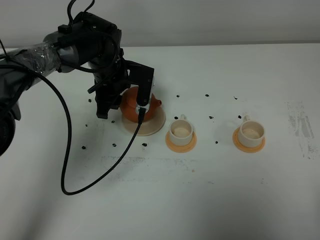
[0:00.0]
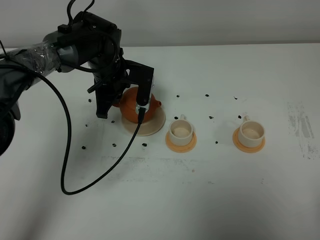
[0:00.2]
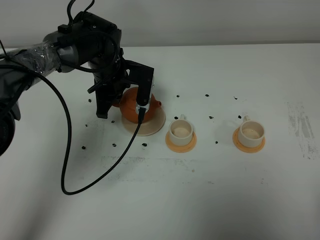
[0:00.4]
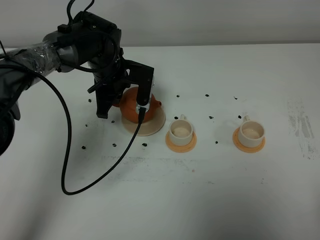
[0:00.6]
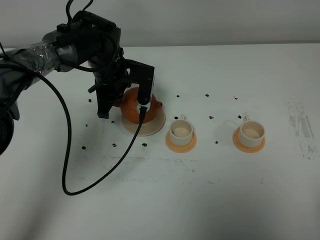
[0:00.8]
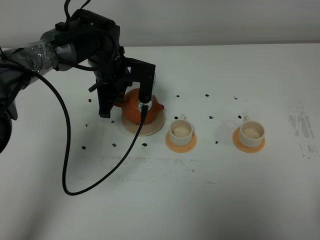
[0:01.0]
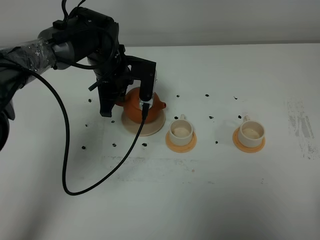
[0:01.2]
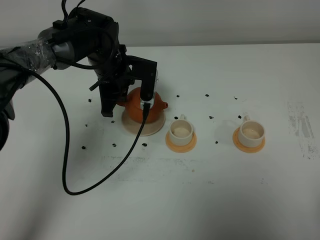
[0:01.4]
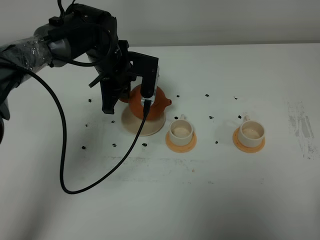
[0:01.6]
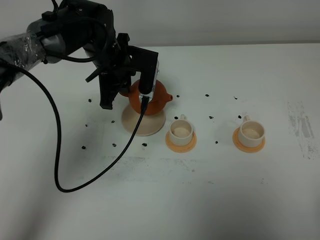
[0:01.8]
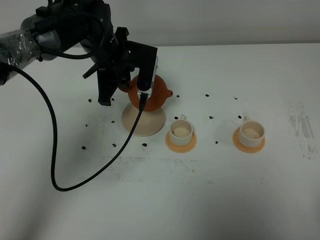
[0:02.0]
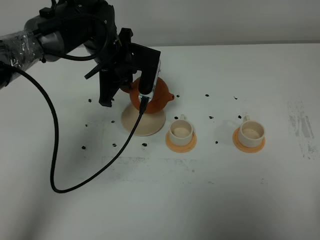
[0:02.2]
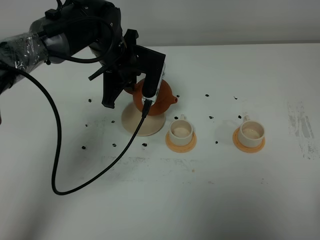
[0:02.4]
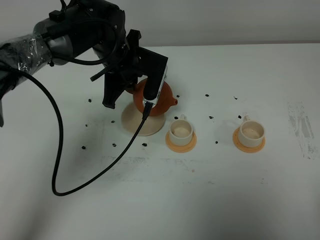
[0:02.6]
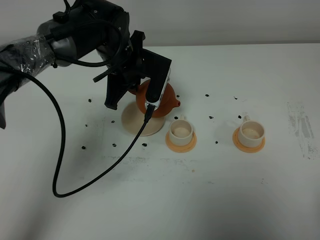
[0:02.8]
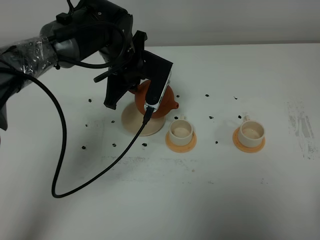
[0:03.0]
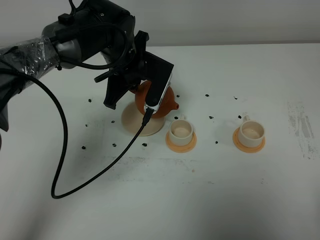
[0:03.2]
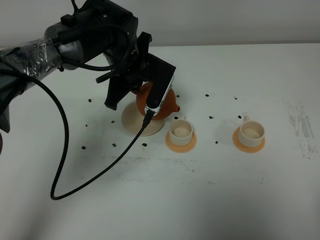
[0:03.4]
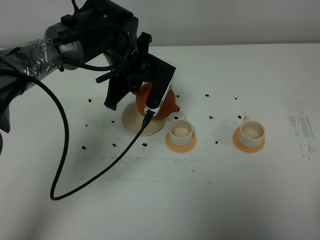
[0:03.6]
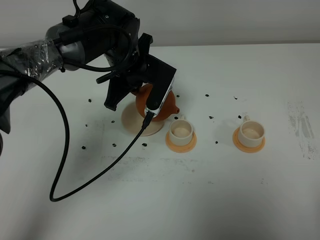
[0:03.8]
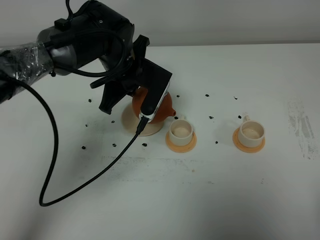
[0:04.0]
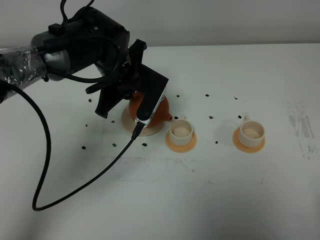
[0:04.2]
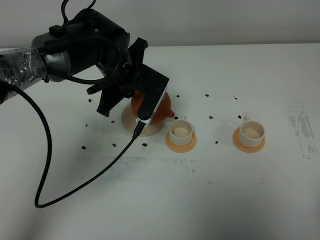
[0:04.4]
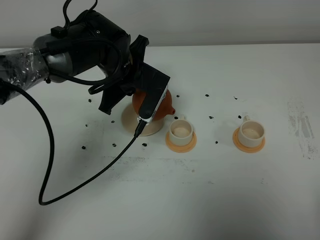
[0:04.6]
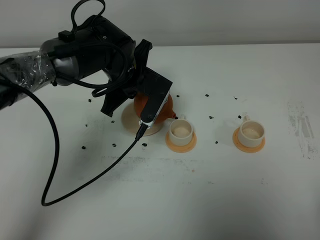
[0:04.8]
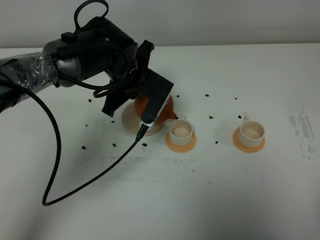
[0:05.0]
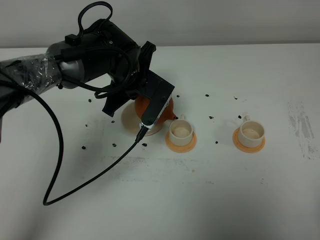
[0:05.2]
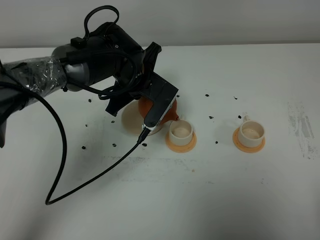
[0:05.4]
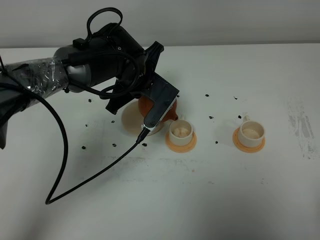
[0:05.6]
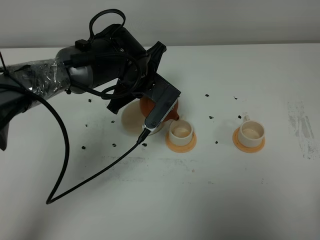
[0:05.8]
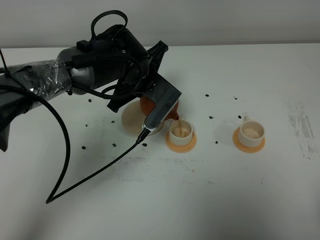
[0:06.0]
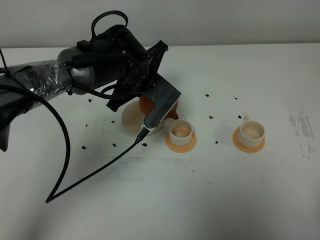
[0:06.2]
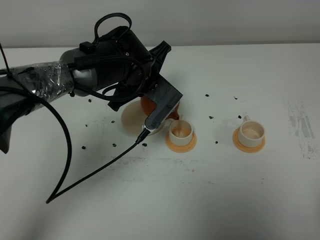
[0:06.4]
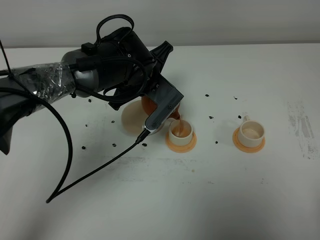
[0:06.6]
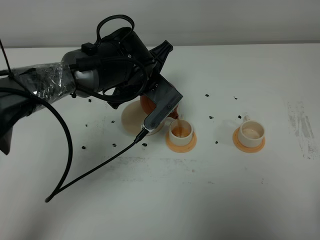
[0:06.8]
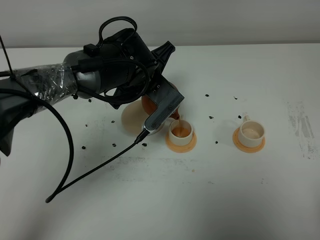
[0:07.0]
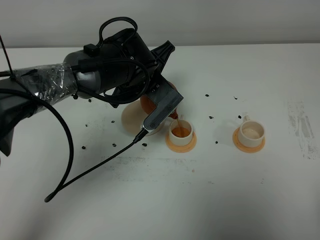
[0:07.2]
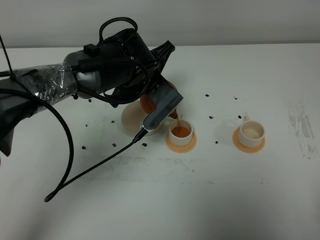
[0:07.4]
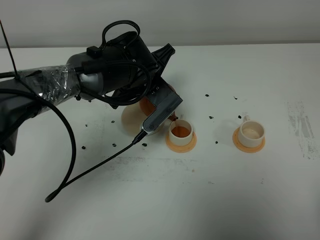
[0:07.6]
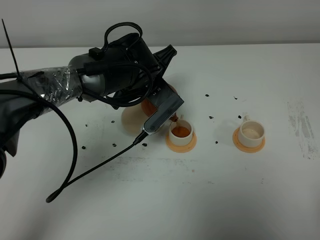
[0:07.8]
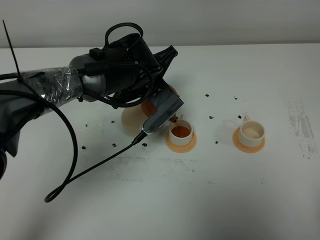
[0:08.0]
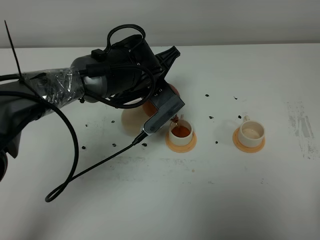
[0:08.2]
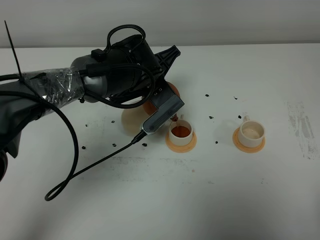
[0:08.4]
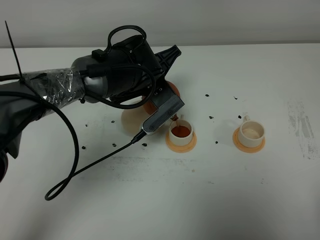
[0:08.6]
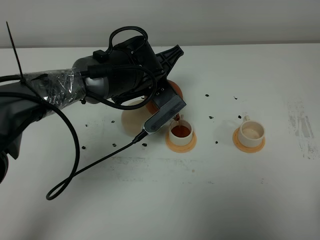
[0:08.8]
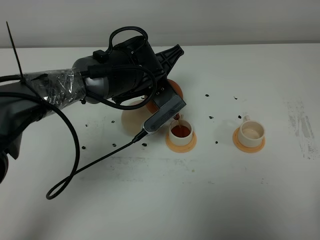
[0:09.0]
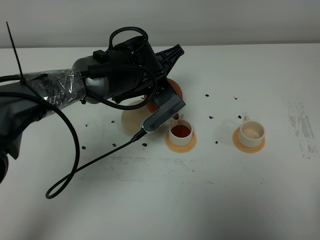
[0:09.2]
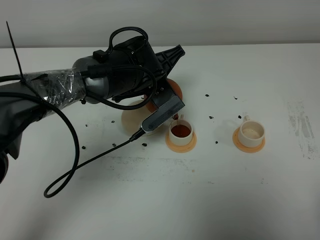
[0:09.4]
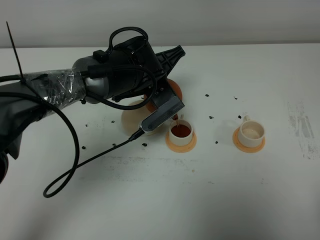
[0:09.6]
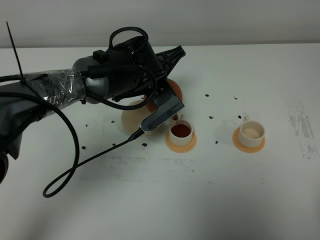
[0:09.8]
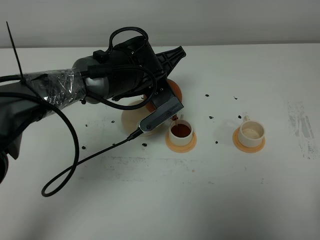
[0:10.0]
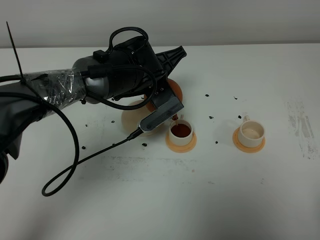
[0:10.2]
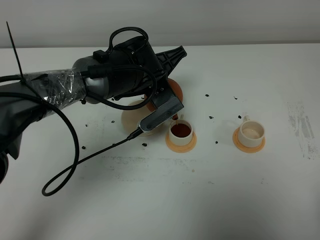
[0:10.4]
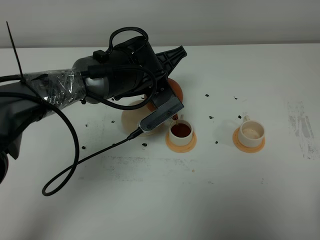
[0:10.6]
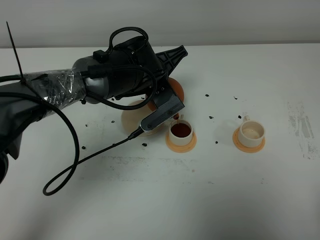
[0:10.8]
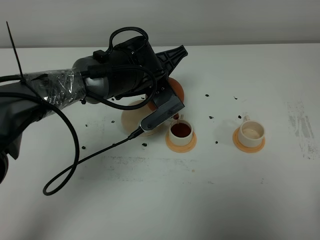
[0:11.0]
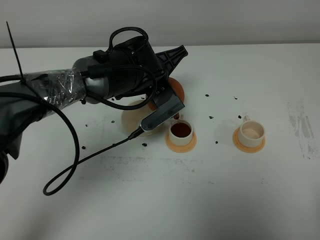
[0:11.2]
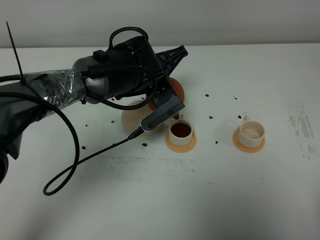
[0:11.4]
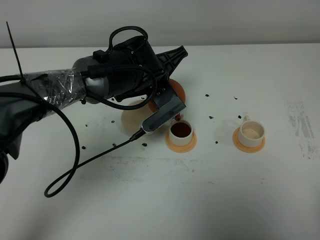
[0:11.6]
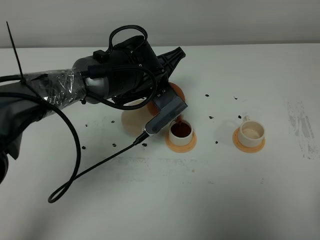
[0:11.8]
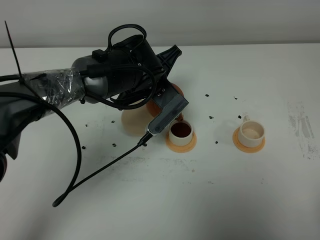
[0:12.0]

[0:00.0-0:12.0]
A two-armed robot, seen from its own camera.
Task of the whole recording: grasp the brown teapot and pour the tea into the two white teacups one by one, put the brown teapot back in its original place.
0:00.0 to 0:01.6: The left gripper closes.
0:01.6 to 0:03.0: The grippers move only a little.
0:03.0 to 0:04.4: The grippers stay close to where they were, moving slightly.
0:04.4 to 0:06.0: The grippers move only a little.
0:06.0 to 0:09.0: The grippers move only a little.
0:09.0 to 0:12.0: The grippers make only small movements.

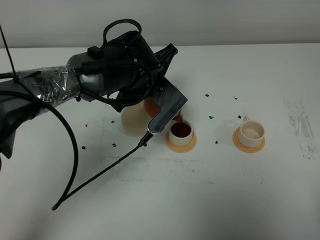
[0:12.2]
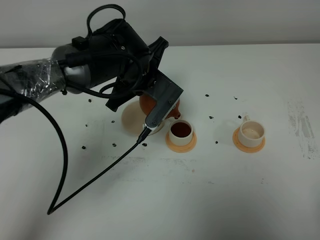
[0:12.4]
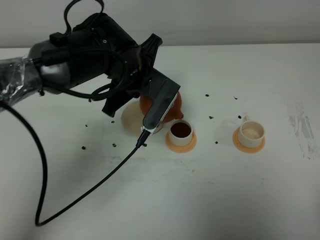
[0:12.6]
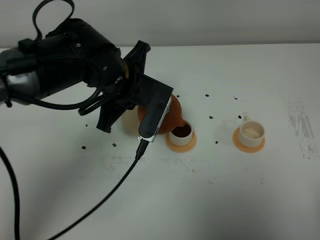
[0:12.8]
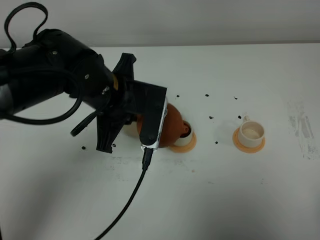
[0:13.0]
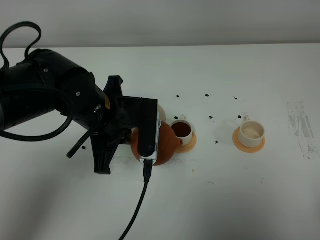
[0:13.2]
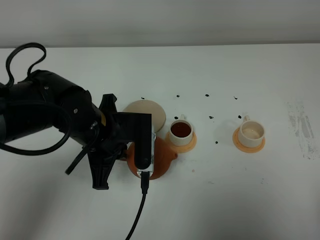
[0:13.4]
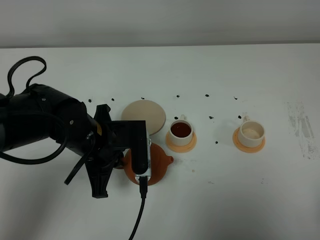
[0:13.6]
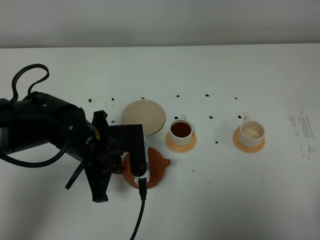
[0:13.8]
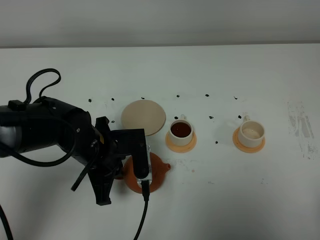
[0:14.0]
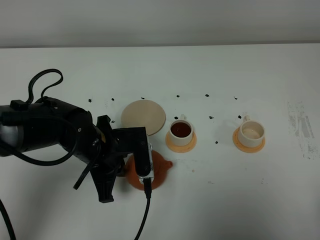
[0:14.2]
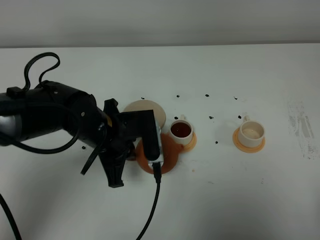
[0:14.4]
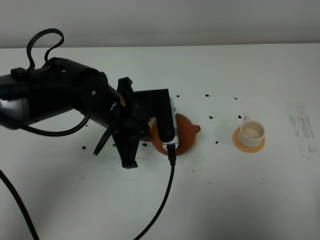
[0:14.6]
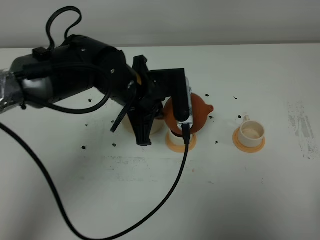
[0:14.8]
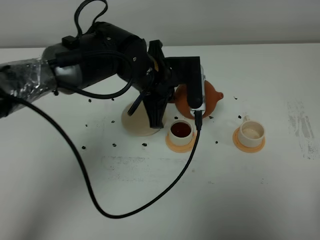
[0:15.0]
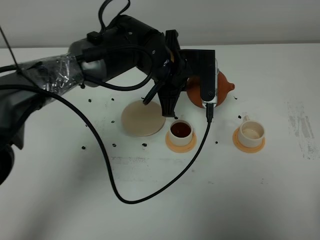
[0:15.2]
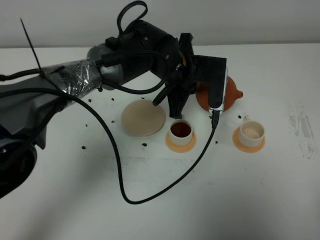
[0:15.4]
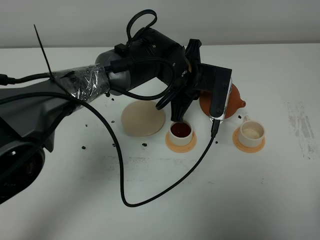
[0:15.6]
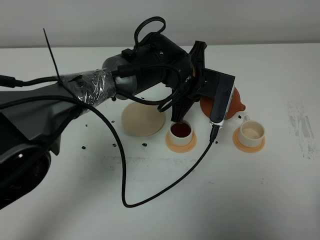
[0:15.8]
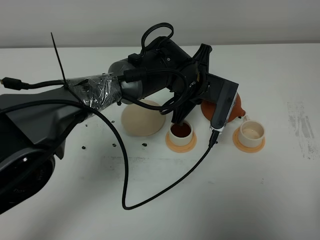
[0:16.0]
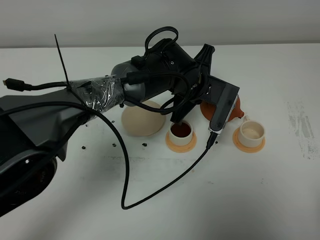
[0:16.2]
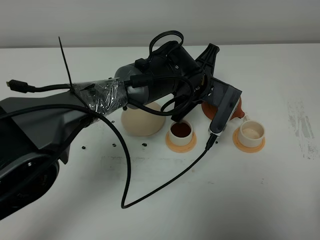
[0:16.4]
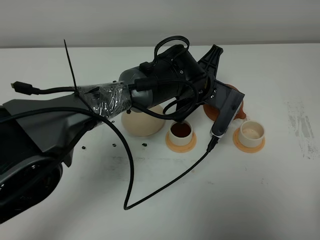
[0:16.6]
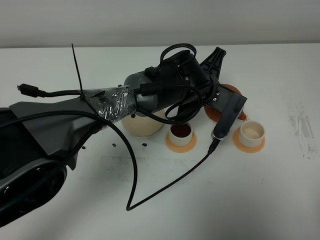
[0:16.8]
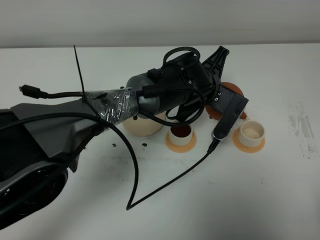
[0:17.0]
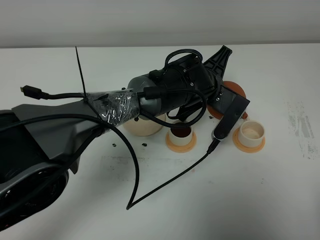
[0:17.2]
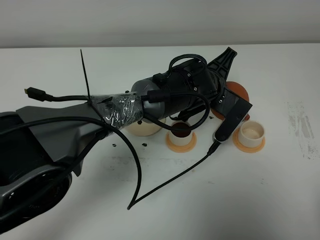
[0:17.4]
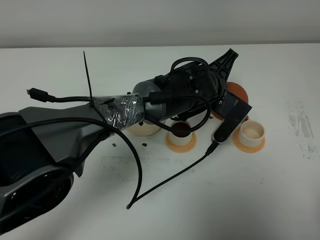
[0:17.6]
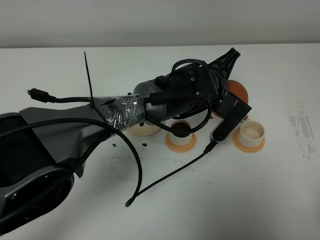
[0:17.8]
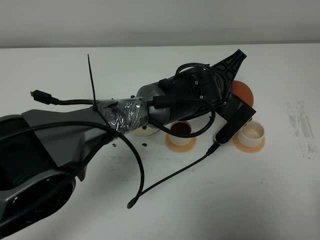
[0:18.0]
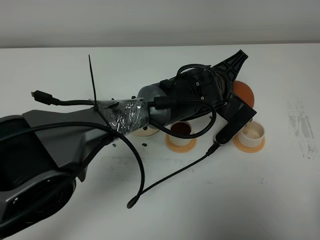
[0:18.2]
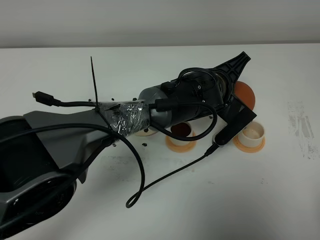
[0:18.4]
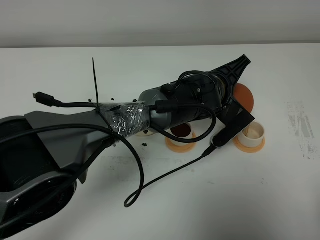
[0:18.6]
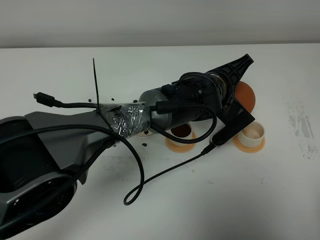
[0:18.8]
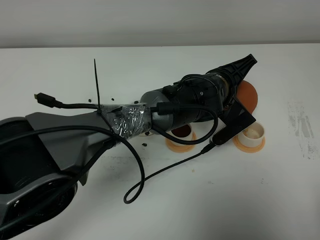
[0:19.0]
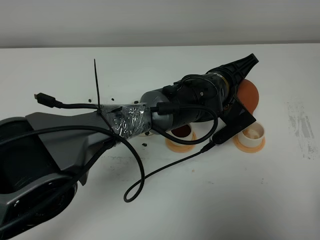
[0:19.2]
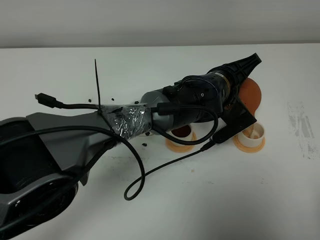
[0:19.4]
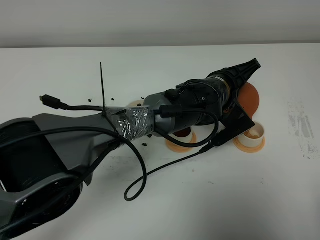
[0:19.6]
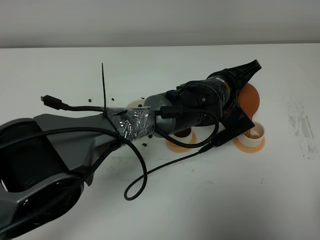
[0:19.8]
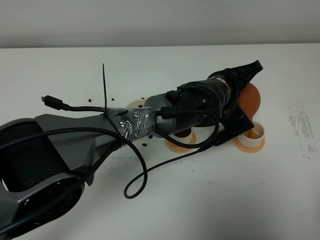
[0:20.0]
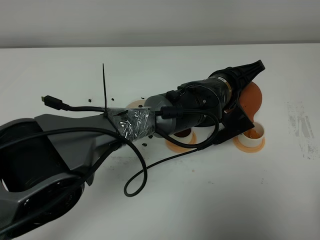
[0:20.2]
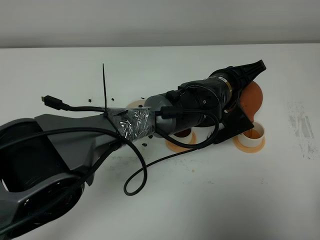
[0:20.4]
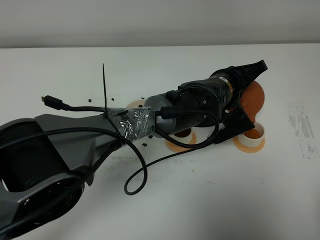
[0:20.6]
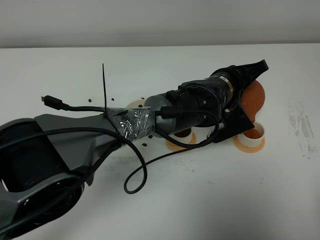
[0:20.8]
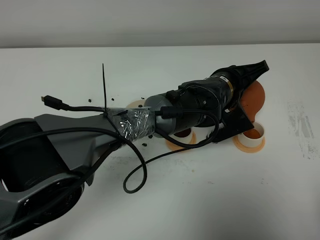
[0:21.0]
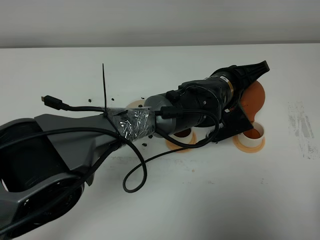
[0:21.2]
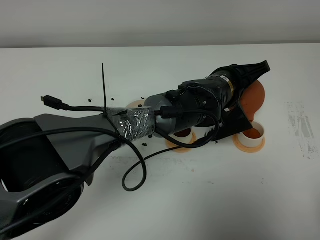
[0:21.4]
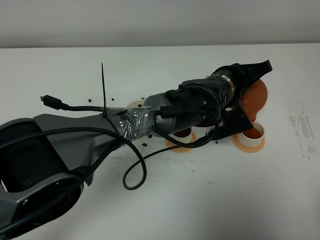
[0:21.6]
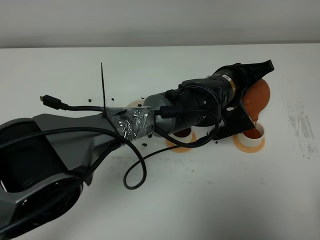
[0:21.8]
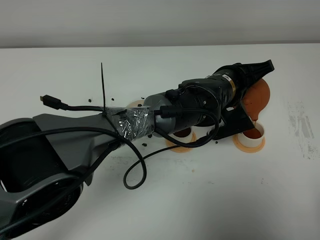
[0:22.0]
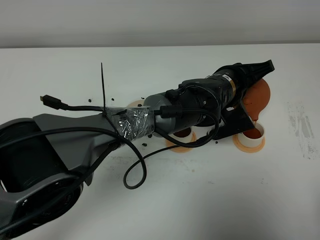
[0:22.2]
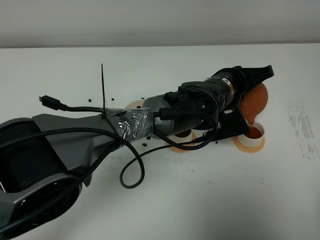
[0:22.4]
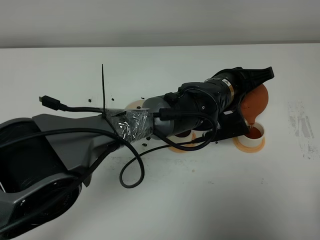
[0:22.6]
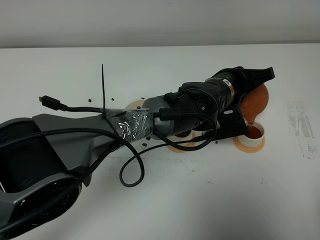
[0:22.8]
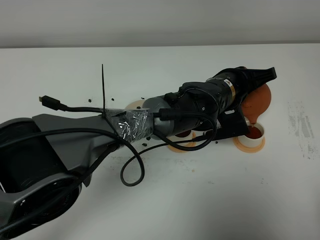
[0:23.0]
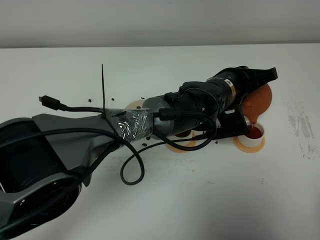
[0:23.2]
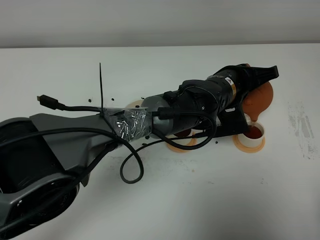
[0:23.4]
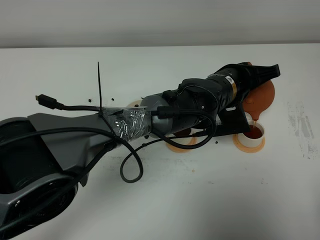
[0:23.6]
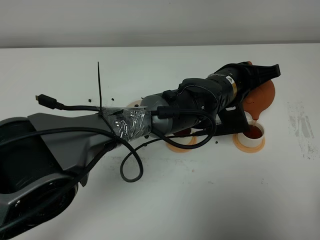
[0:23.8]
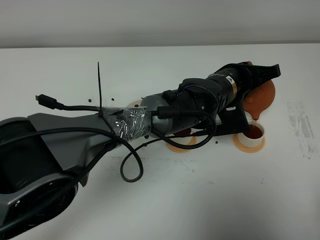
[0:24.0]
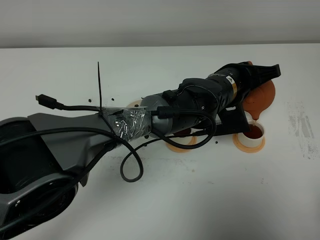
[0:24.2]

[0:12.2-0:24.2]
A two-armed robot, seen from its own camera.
Task of the whole recording: grasp the brown teapot and pour the tea into the two white teacups one by one, put the brown teapot back in its original place.
0:12.2 to 0:13.8: The left gripper goes roughly 15 cm backward and to the left.
0:13.8 to 0:15.2: The left gripper is displaced to the right, forward and upward by some 20 cm.
0:15.2 to 0:16.6: The left gripper travels to the right by approximately 5 cm.
0:18.2 to 0:19.8: There are only small adjustments of the grippers.
0:19.8 to 0:22.6: The grippers move only a little.
0:22.6 to 0:24.2: The grippers move only a little.
